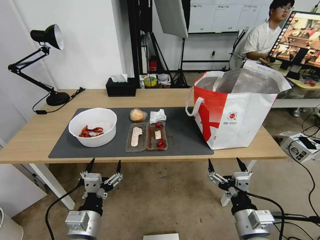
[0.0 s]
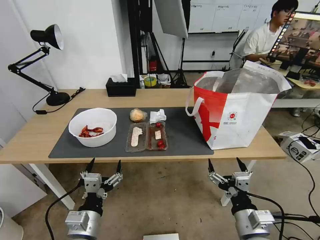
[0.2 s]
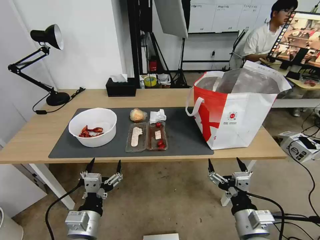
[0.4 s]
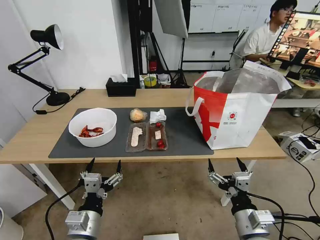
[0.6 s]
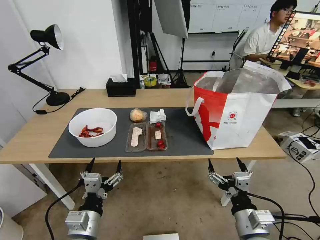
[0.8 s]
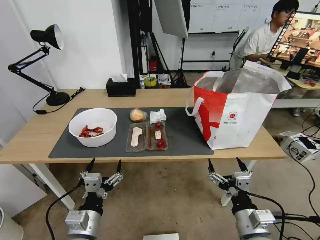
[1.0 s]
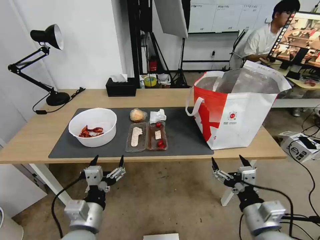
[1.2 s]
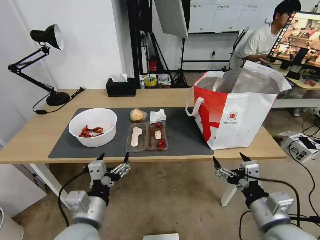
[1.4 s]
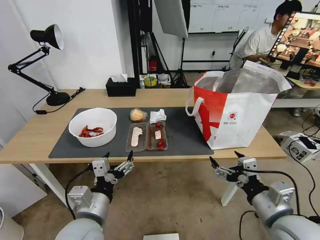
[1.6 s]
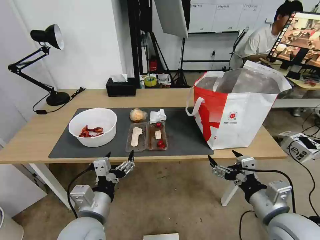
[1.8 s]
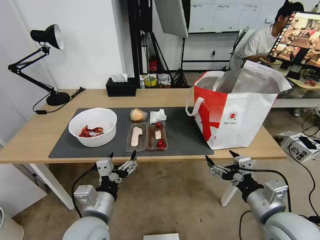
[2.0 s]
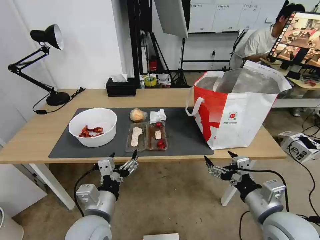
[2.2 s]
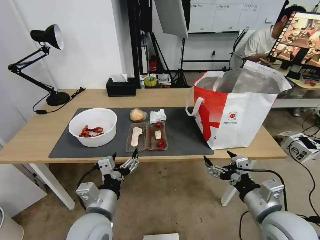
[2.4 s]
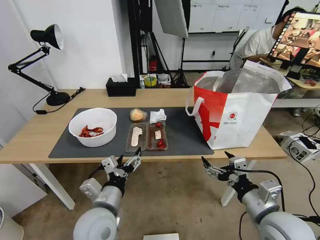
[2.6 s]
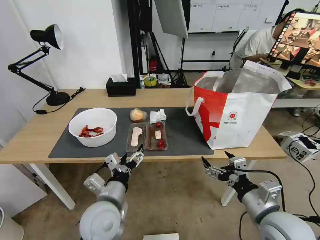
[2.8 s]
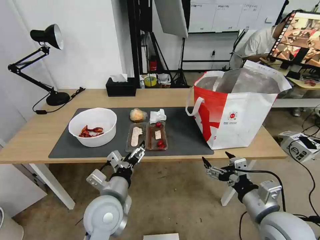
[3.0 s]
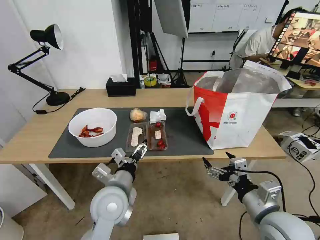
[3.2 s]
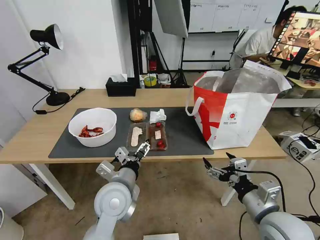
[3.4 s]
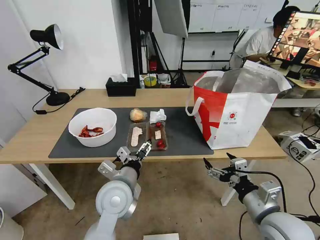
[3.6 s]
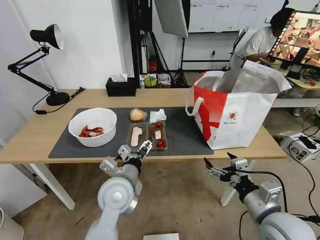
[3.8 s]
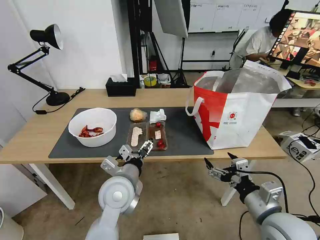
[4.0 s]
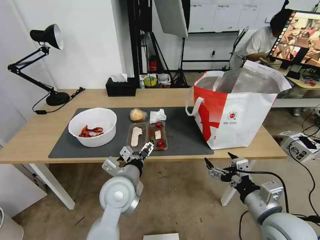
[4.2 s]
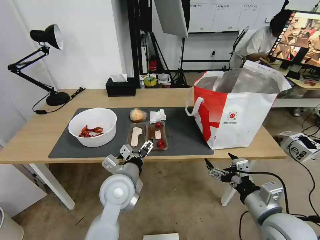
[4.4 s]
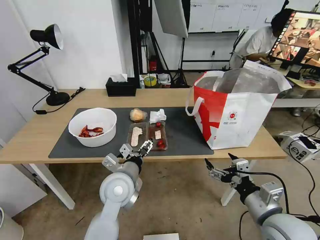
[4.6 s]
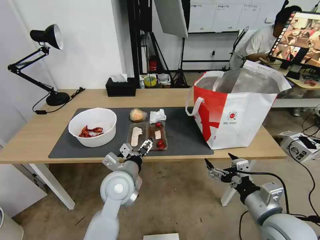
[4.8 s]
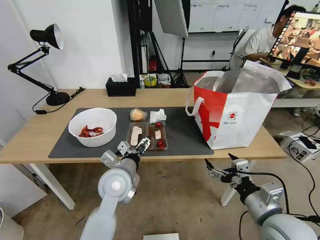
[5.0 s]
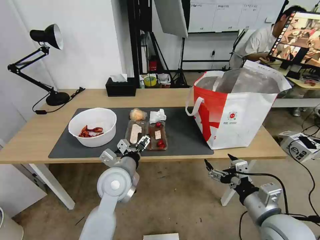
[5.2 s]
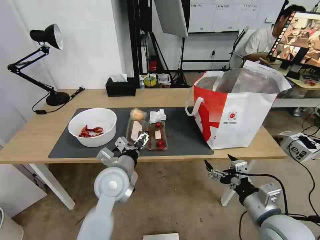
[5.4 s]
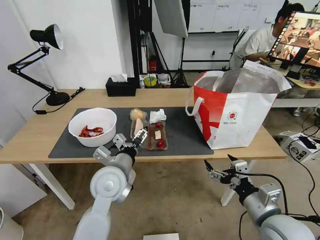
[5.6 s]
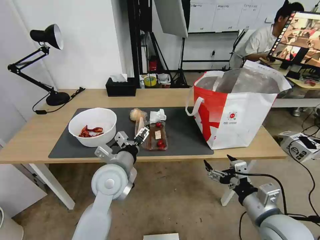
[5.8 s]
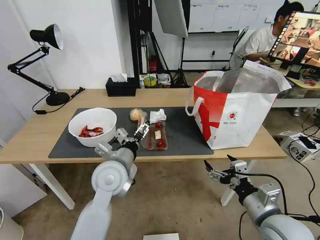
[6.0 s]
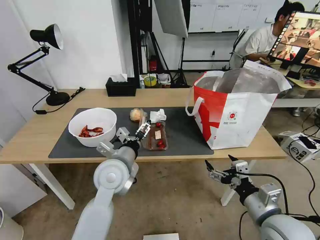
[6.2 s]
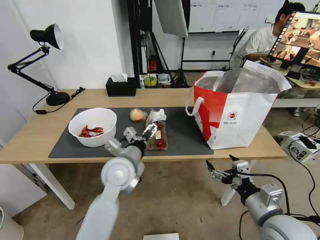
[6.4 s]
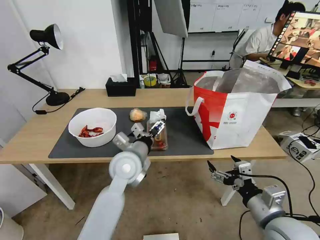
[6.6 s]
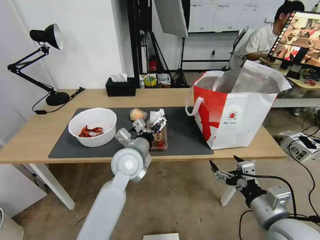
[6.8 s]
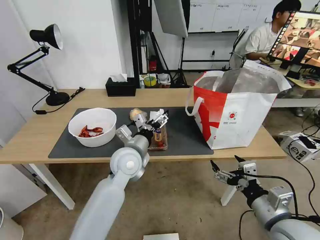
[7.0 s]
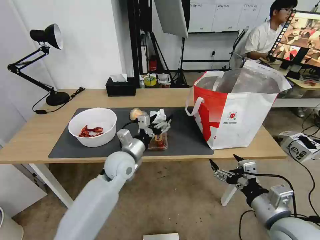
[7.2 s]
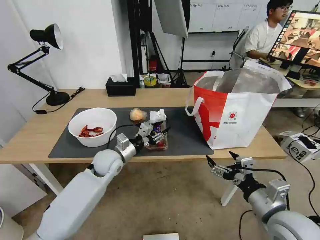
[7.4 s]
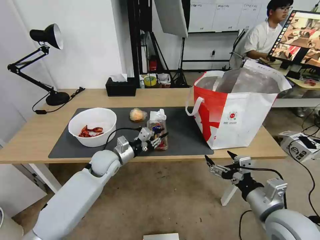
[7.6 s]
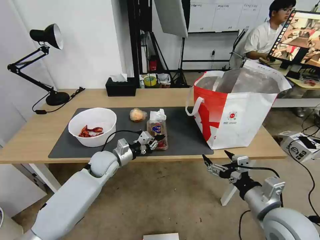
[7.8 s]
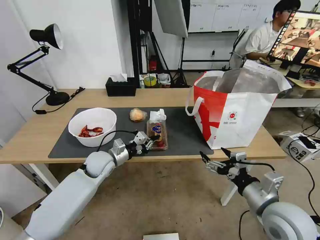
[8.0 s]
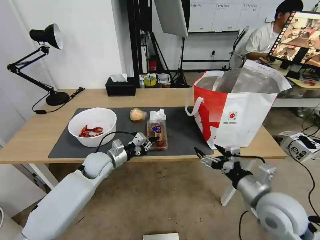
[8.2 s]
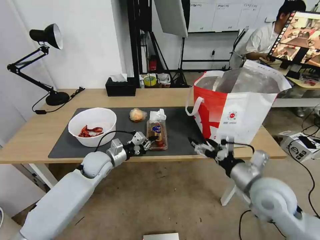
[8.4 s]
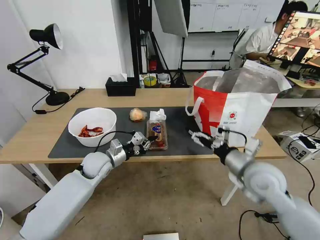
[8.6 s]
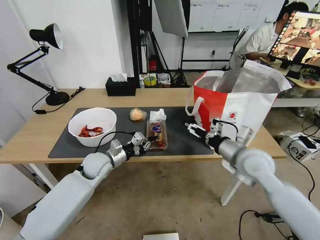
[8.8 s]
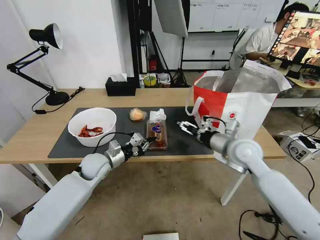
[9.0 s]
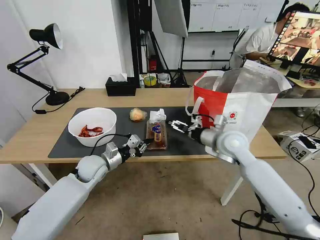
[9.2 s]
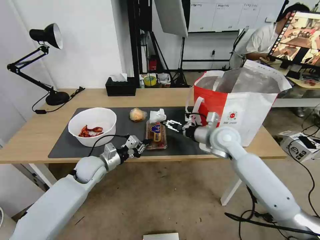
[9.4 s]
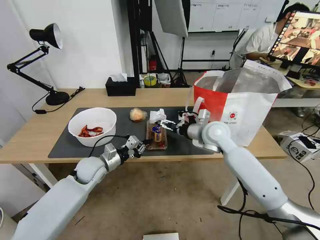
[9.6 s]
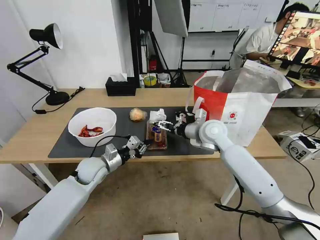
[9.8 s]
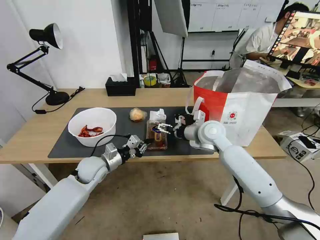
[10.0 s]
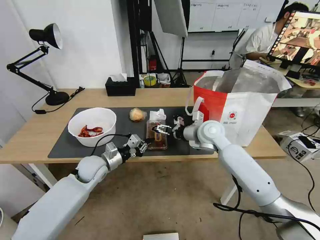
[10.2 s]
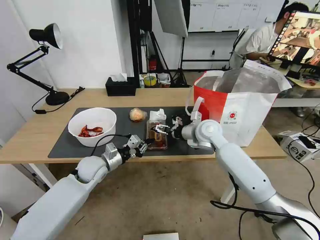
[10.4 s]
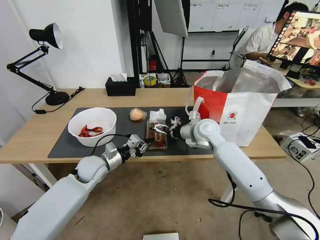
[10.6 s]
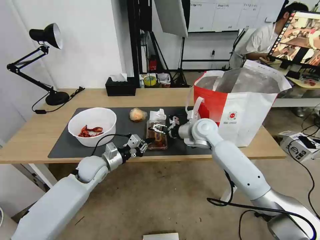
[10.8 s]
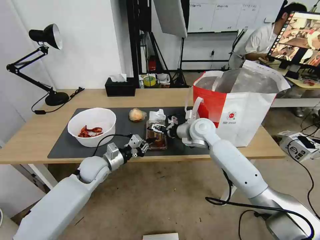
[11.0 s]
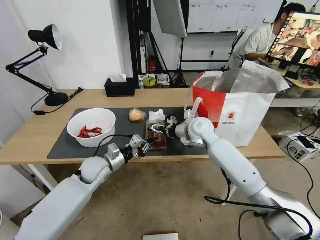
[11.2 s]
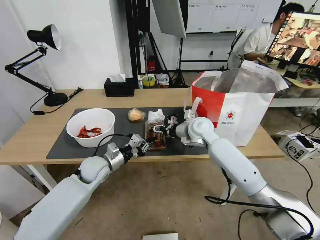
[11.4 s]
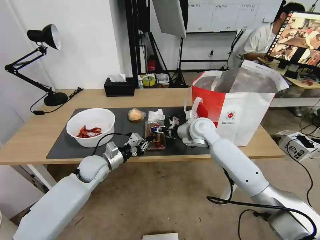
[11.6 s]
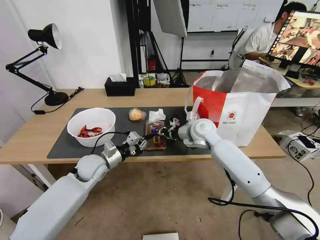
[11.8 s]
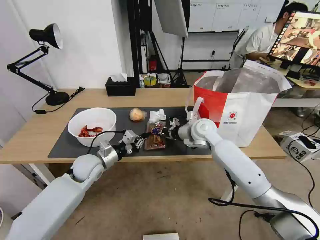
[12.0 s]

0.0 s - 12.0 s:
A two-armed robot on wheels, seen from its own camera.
Task of the whole recording: Pick up the trash from the table and place it into the takeout bag.
1.6 s - 3.0 s: The left gripper shifts roughly 5 cm forward.
3.0 s - 4.4 s: The left gripper heads forward, covering approximately 5 cm.
4.4 s - 6.0 s: The grippers make only small movements.
6.0 s - 7.6 s: The left gripper travels forward, downward and to the left by roughly 15 cm, and closes.
7.6 s - 9.0 s: The right gripper shifts about 20 cm forward.
9.0 s - 10.4 s: The right gripper travels forward and to the left by approximately 15 cm.
10.4 s - 12.0 s: The right gripper closes up.

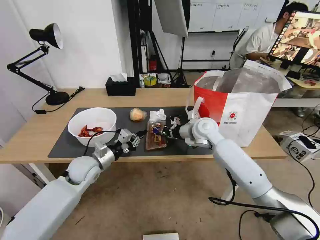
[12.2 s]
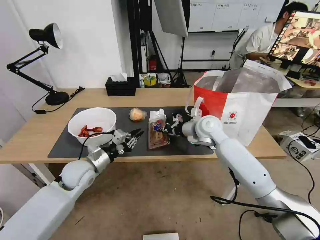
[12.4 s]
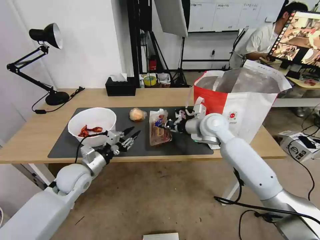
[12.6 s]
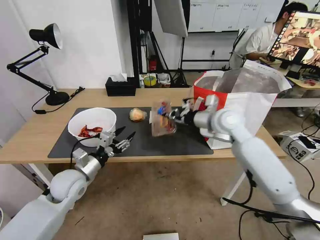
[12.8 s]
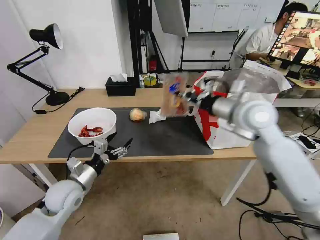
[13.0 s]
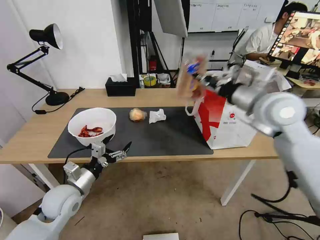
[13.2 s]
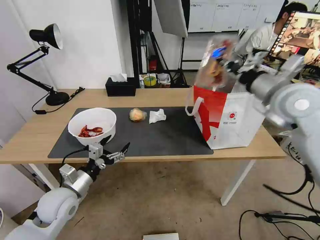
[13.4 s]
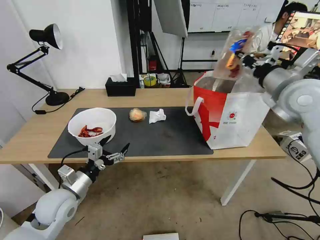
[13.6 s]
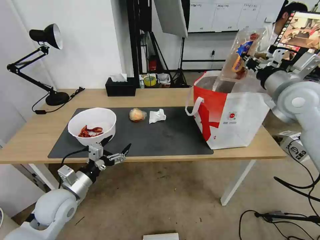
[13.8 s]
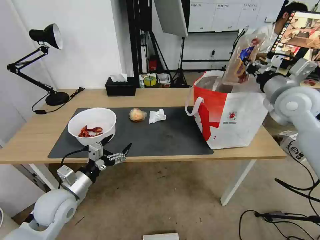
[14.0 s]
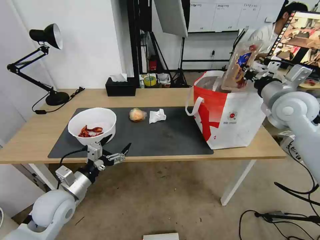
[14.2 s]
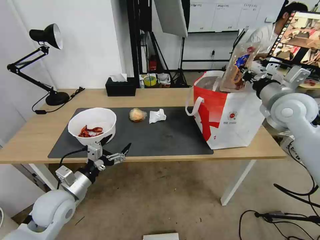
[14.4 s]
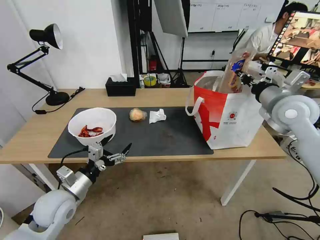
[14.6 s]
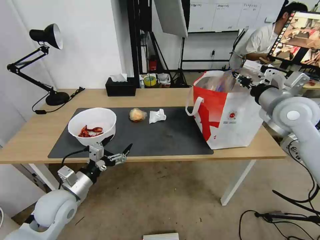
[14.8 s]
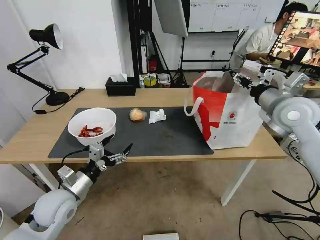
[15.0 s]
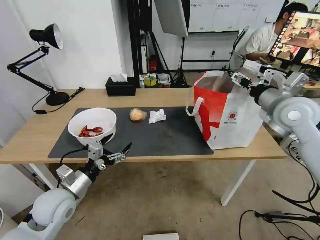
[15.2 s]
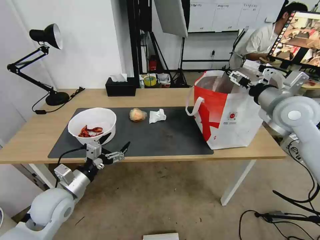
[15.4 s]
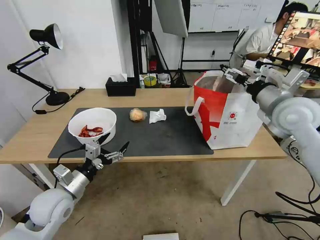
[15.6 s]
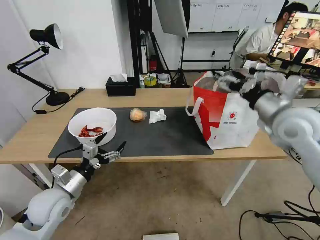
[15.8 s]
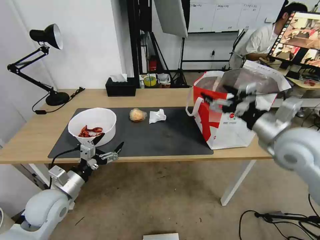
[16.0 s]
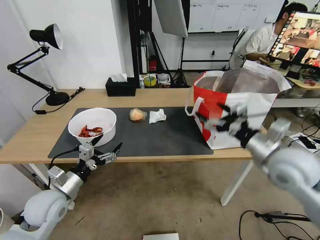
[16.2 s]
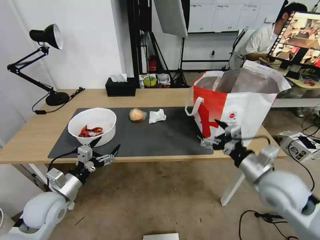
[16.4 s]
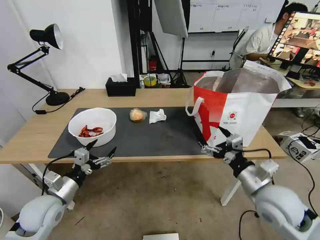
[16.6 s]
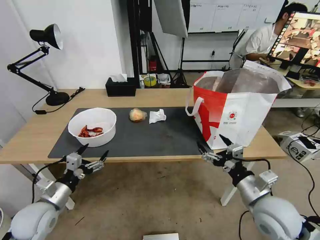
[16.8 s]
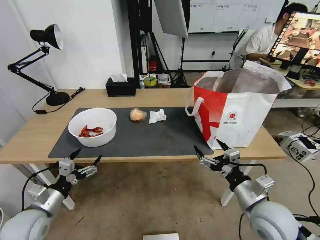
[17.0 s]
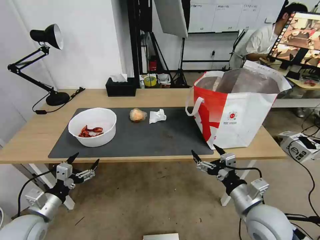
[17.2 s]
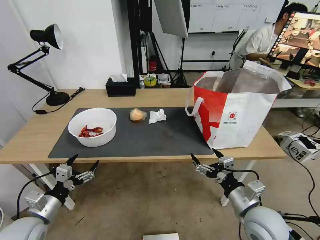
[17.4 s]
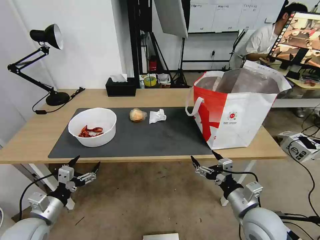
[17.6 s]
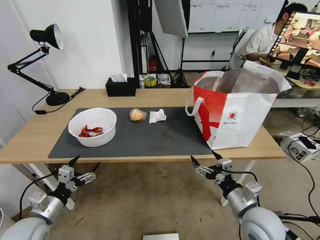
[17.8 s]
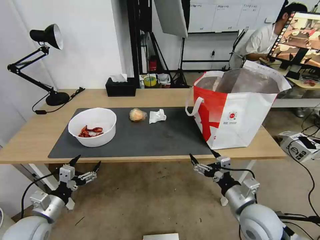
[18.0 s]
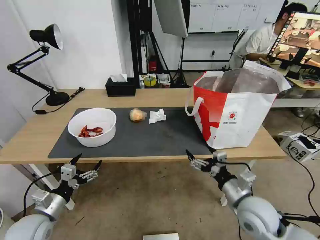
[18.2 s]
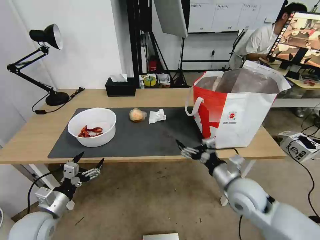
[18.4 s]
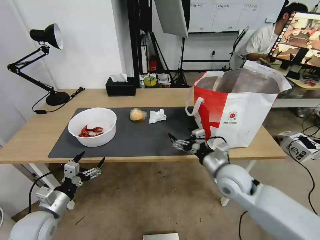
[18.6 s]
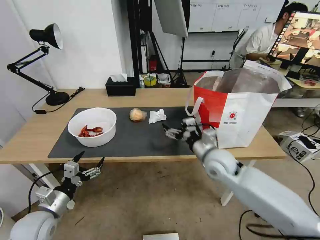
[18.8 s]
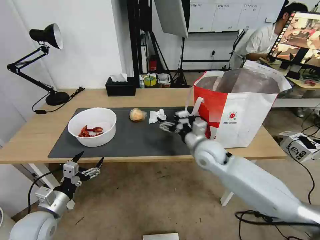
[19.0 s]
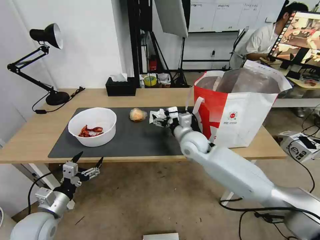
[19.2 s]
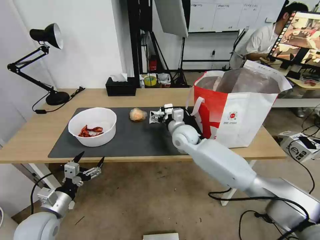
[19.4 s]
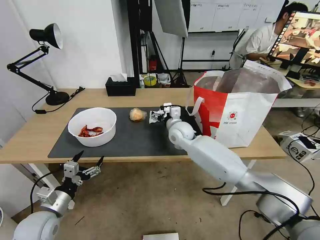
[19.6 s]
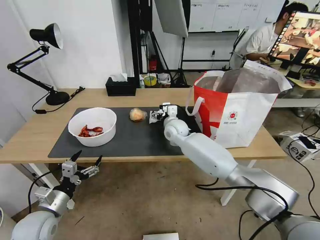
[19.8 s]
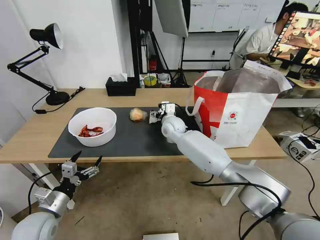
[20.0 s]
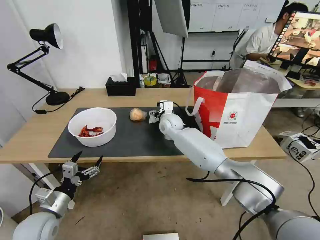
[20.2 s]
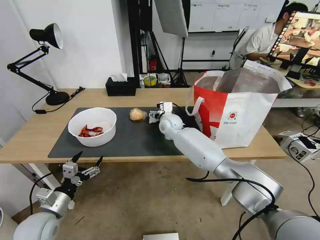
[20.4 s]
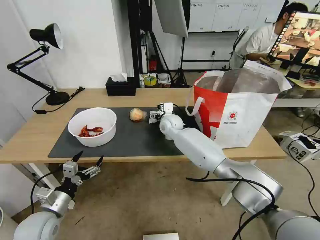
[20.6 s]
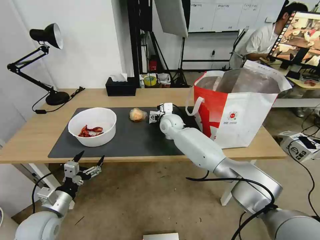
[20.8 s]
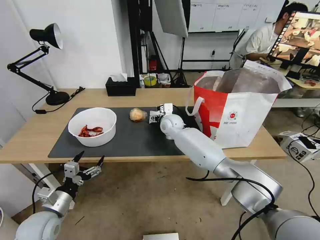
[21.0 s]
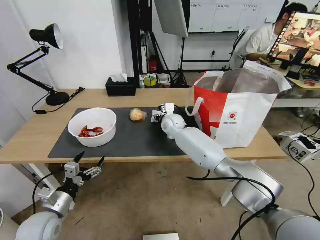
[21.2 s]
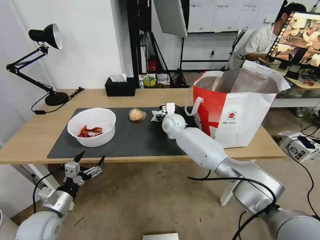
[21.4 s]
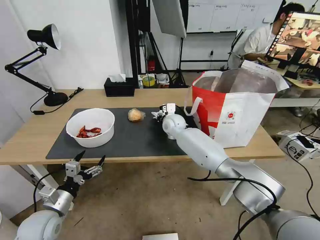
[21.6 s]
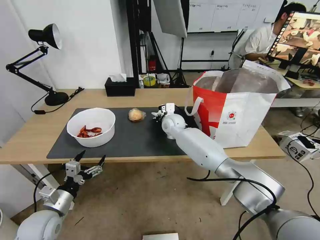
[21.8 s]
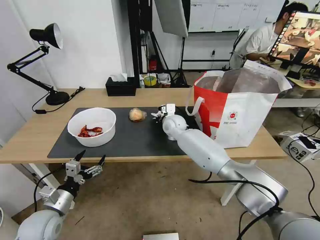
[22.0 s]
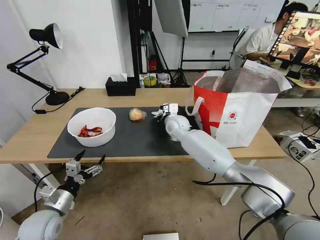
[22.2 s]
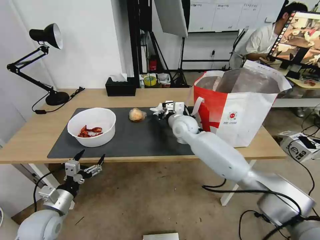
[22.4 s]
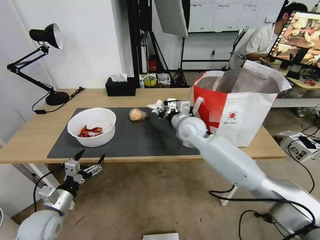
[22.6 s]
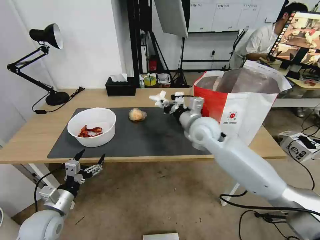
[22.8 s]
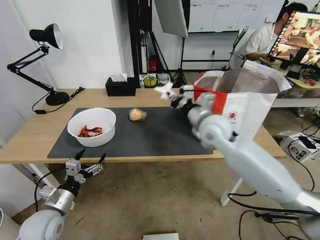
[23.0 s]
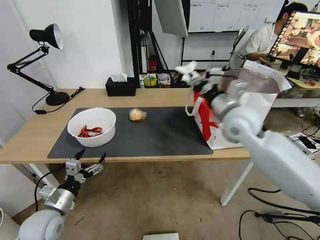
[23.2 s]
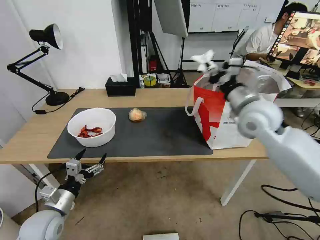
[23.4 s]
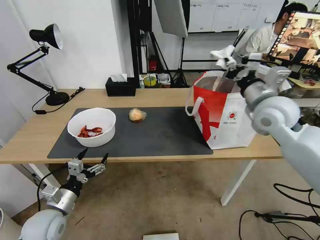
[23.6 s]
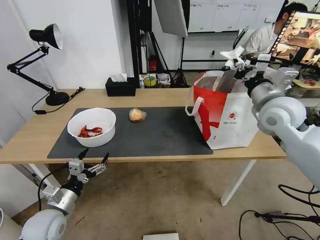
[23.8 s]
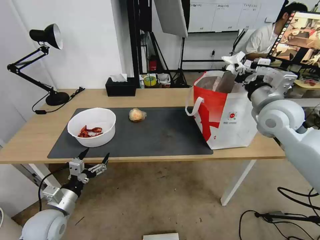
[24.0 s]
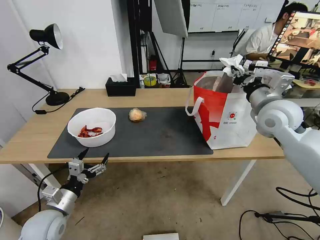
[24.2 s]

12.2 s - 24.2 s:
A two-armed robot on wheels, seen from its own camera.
Task of the whole recording: Pick up the trash from the table and place it into the takeout bag.
12.2 s - 13.8 s: The right gripper shifts roughly 25 cm to the right and upward. Meanwhile the left gripper travels backward by roughly 10 cm, and opens up.
13.8 s - 15.2 s: The right gripper opens up.
15.2 s - 16.6 s: The right gripper is displaced backward and downward by roughly 25 cm. Meanwhile the left gripper changes place by roughly 5 cm.
16.6 s - 18.2 s: The right gripper travels downward by about 5 cm. Meanwhile the left gripper moves approximately 5 cm.
18.2 s - 19.8 s: The right gripper travels forward and to the left by approximately 35 cm.
19.8 s - 21.2 s: There are only small adjustments of the grippers.
21.2 s - 22.6 s: The right gripper shifts about 10 cm backward, upward and to the right, and closes up.
22.6 s - 24.2 s: The right gripper goes about 25 cm to the right and upward.
